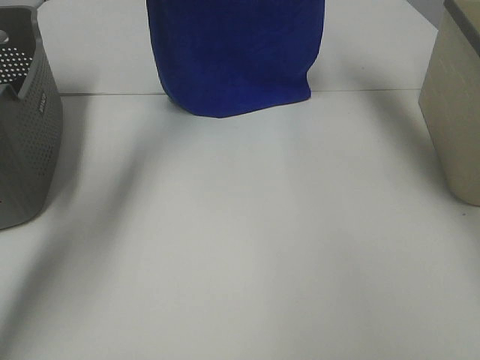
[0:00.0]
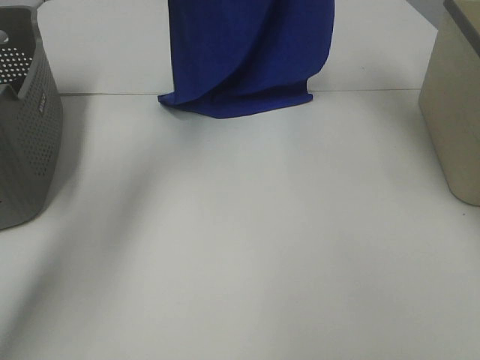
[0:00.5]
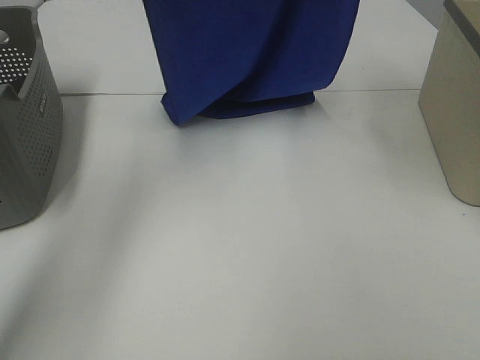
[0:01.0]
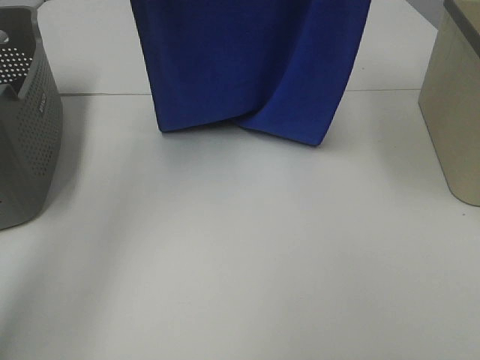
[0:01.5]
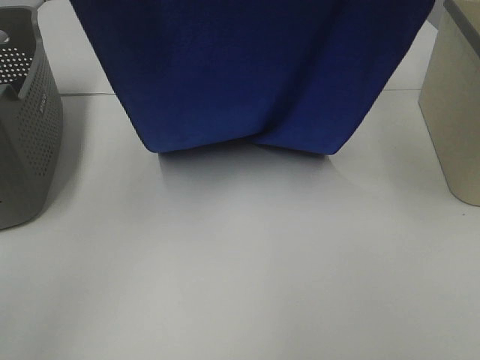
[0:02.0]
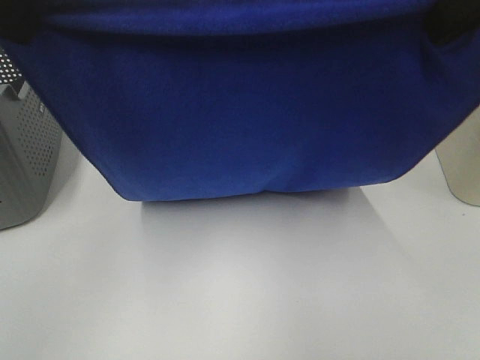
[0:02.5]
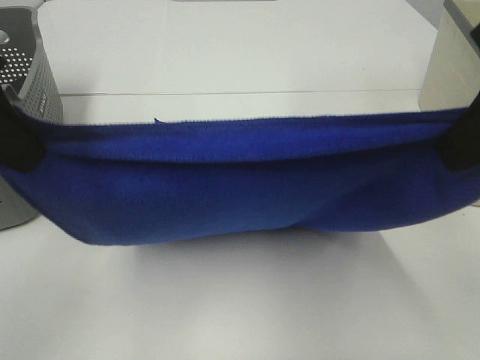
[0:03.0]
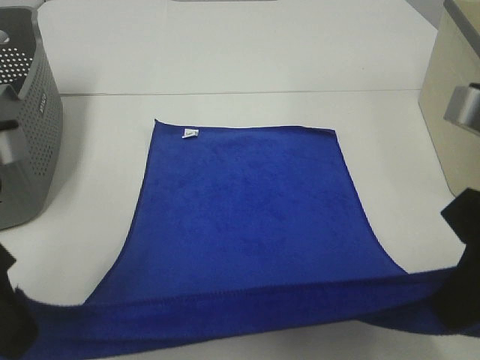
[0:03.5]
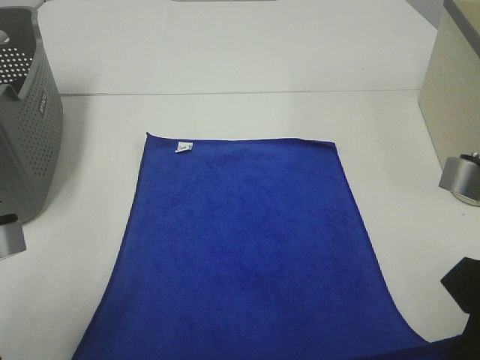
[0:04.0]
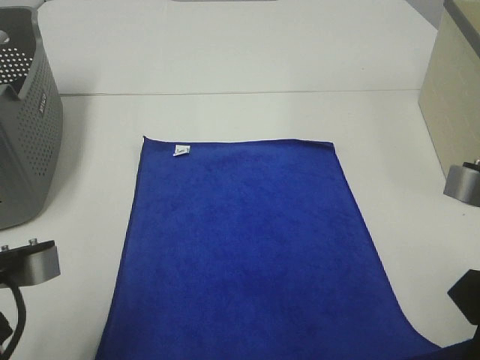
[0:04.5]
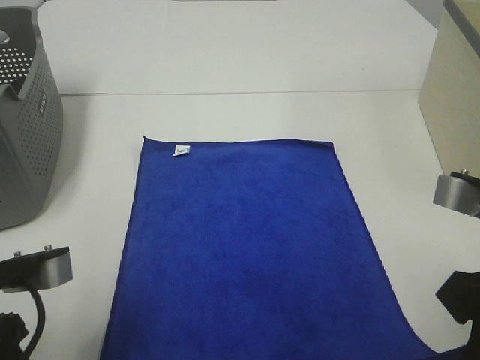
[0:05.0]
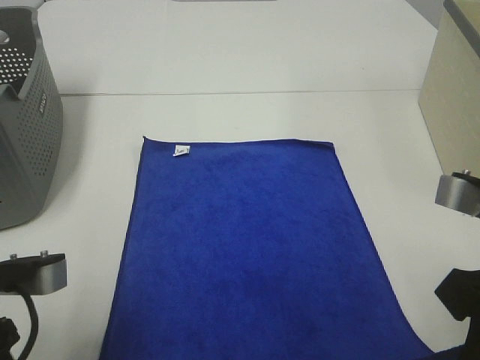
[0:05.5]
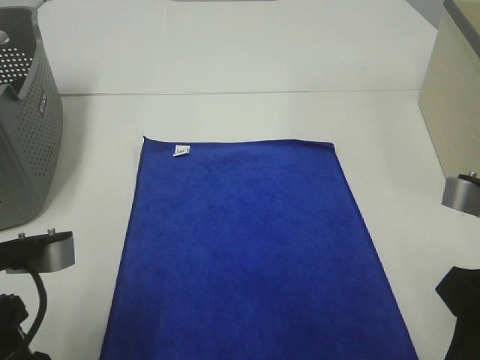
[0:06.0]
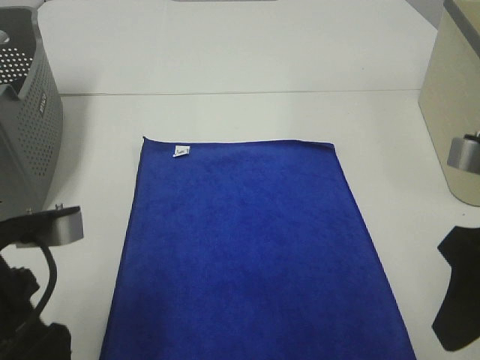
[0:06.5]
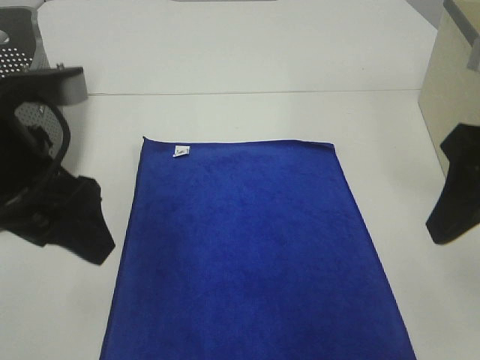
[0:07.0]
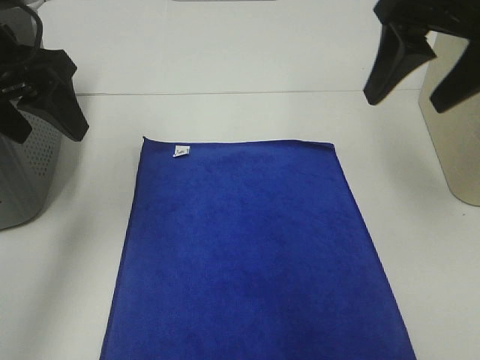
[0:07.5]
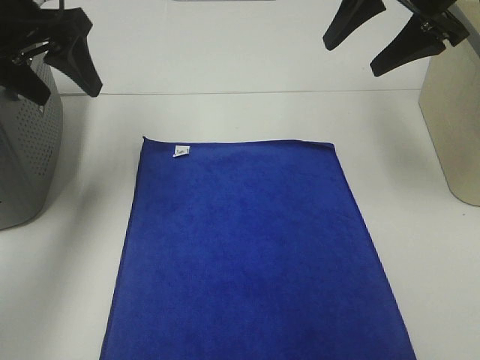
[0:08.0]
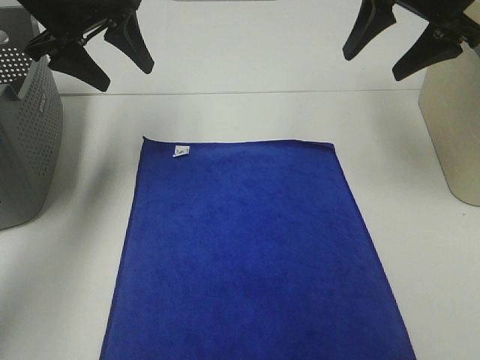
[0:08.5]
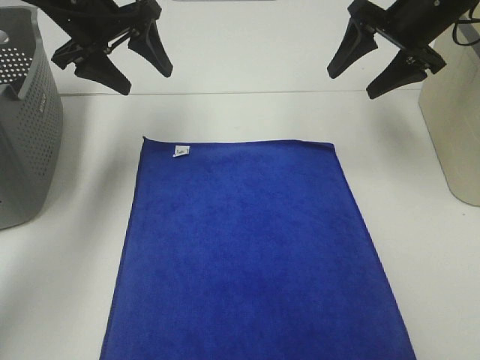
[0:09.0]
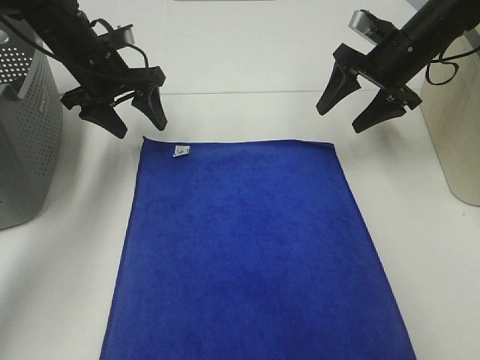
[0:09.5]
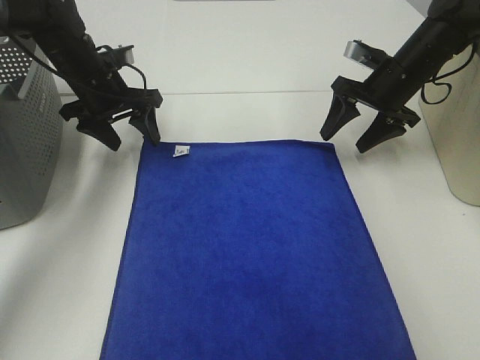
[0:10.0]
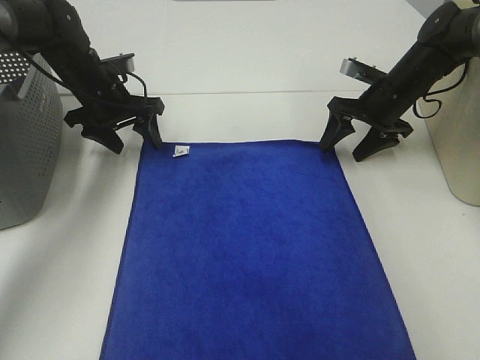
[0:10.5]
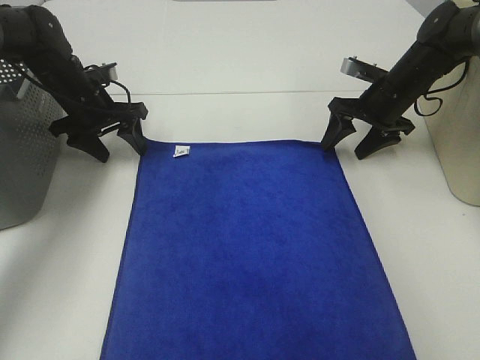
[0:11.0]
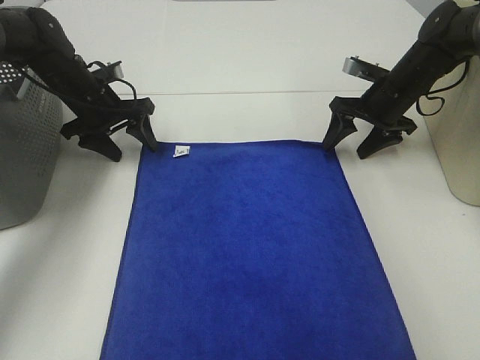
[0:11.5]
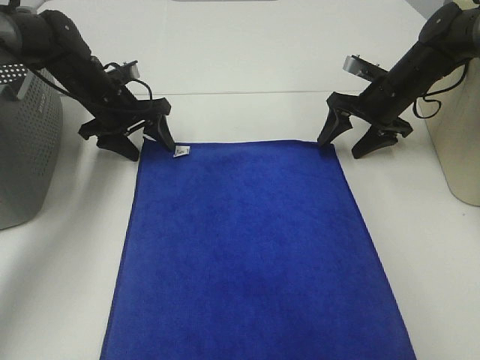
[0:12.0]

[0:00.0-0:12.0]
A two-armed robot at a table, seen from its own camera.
Task of the whole recording: Remove the towel and place it.
Step, 0:02.0 to 0:10.0: Left hand:adjust the blue towel.
Step, 0:02.0 to 0:10.0: Right hand:adjust the blue towel.
0:00.0 to 0:02.0: Both grippers move backward, roughly 20 cm.
0:02.0 to 0:04.0: The grippers both shift downward and backward by about 30 cm.
0:04.0 to 0:06.0: The right gripper opens its fingers. Meanwhile the left gripper opens its fingers.
0:06.0 to 0:08.0: The left gripper heads forward and upward, covering approximately 25 cm; the right gripper shifts about 25 cm forward.
0:08.0 to 0:10.0: The two grippers go about 20 cm downward and forward.
0:10.0 to 0:12.0: The grippers move only a little.

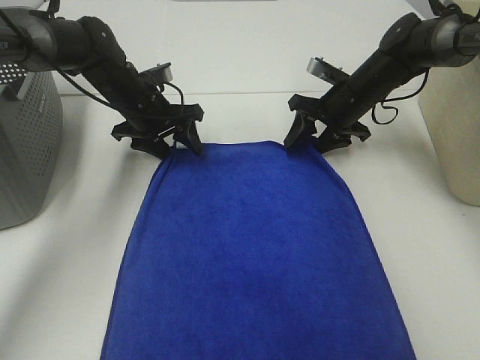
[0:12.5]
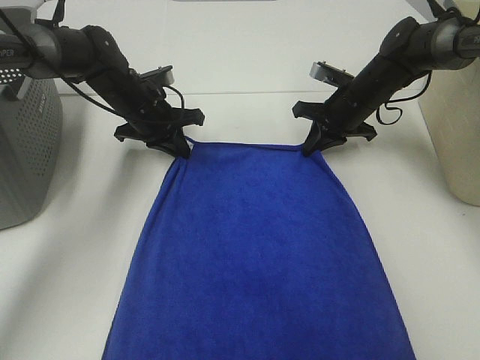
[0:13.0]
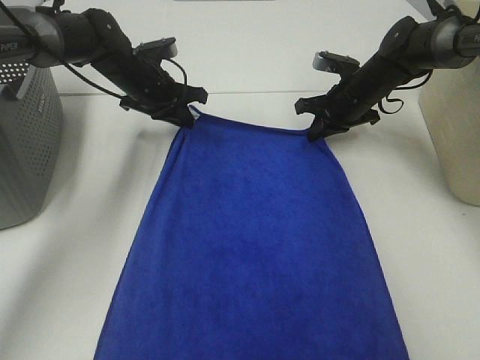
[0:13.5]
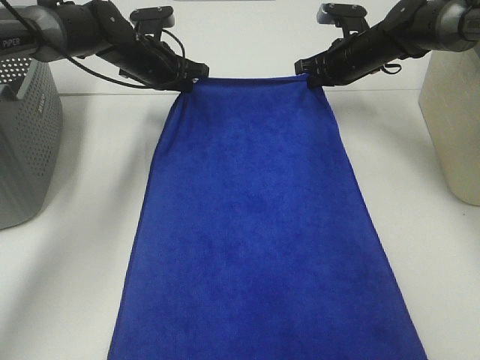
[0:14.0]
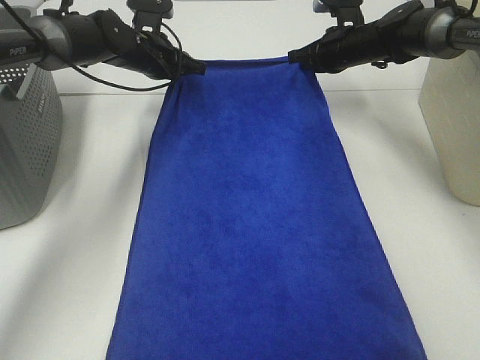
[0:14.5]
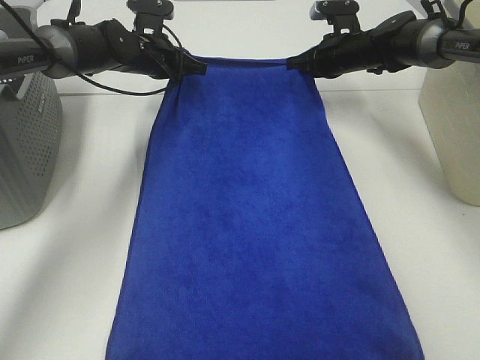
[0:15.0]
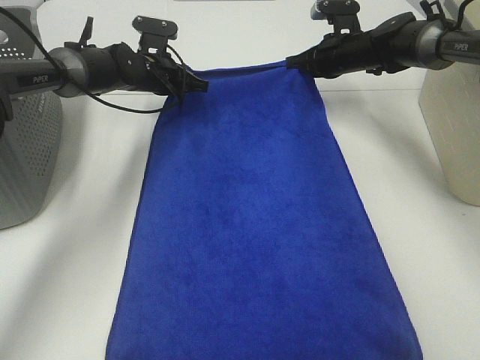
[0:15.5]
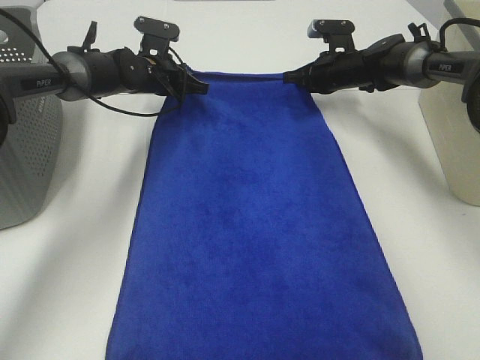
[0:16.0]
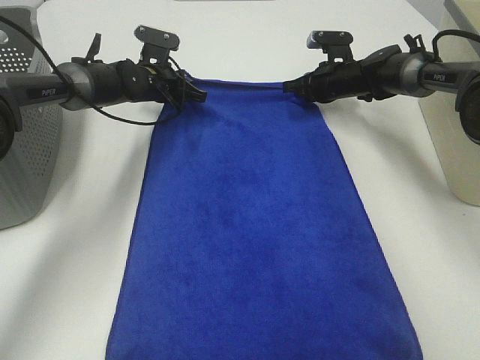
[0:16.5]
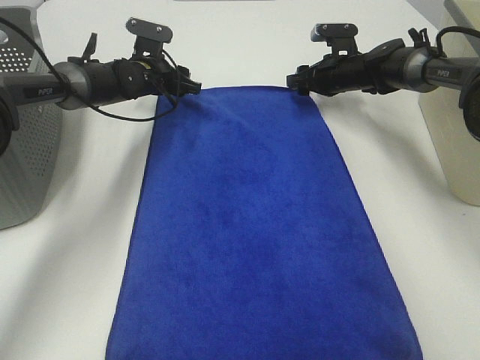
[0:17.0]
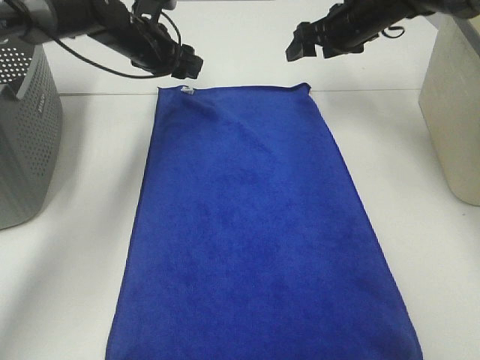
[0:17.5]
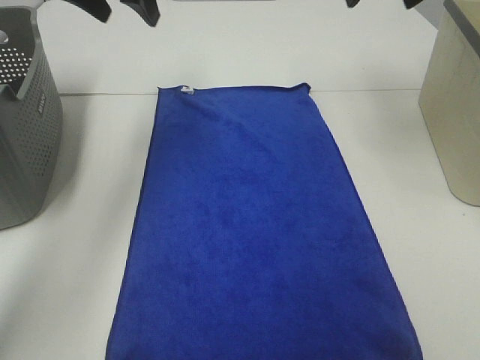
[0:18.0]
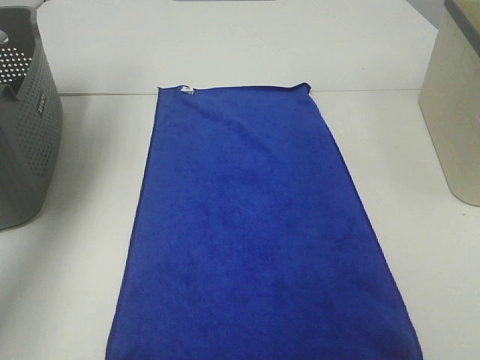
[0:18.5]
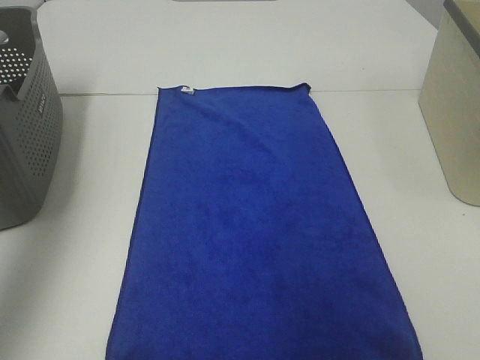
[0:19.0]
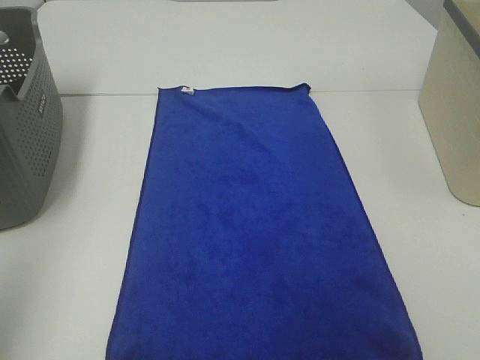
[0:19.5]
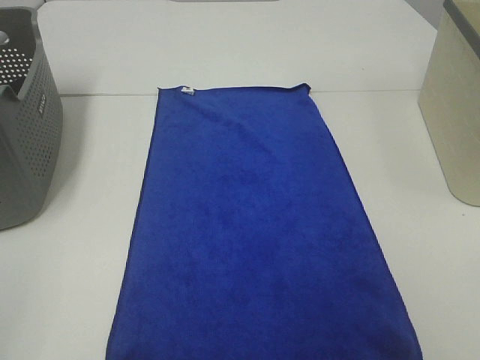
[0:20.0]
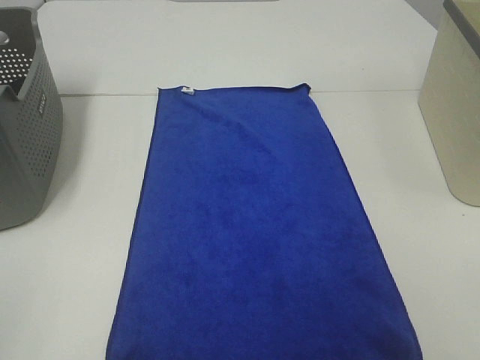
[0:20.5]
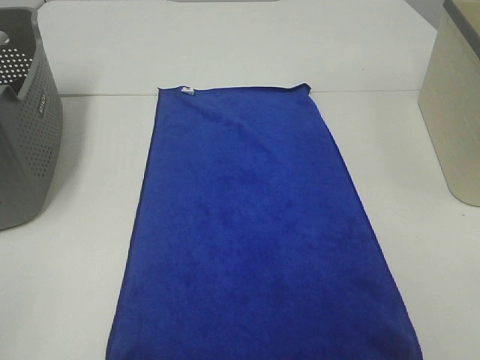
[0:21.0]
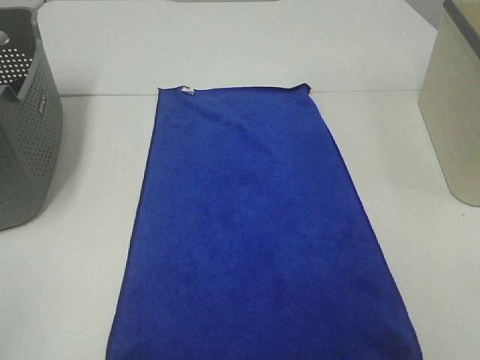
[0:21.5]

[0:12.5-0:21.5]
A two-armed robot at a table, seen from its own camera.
Task of the whole recording: Remove the towel and place it.
0:12.5 to 0:14.5: The grippers both shift forward by approximately 5 cm. The left gripper closes up. The right gripper closes.
0:14.5 to 0:17.0: The right gripper shifts roughly 5 cm downward, and opens its fingers. The left gripper shifts by approximately 5 cm, and opens up.
0:17.0 to 0:19.5: Both grippers move backward and upward, approximately 60 cm.
0:19.5 to 0:21.5: The left gripper shifts approximately 15 cm backward and downward.

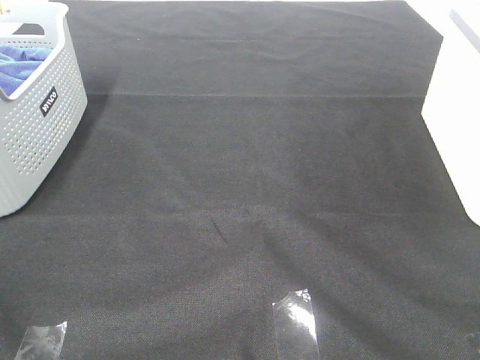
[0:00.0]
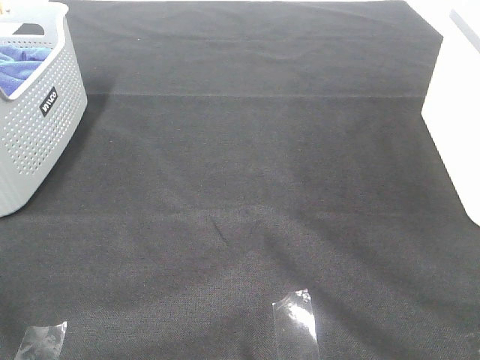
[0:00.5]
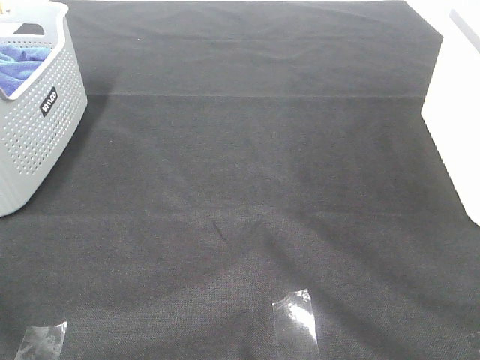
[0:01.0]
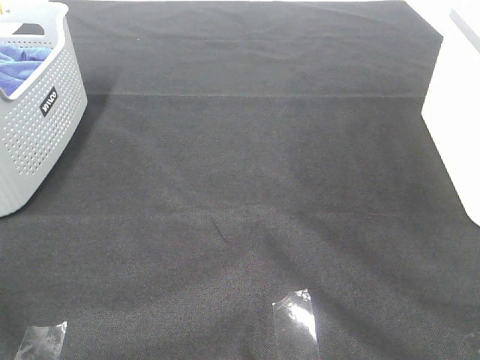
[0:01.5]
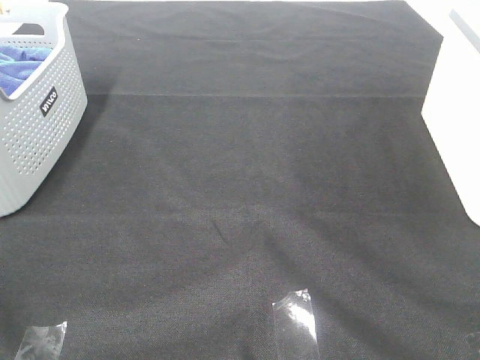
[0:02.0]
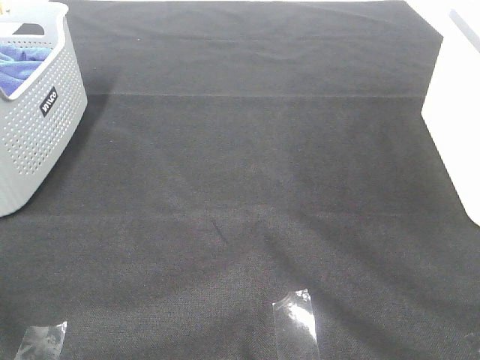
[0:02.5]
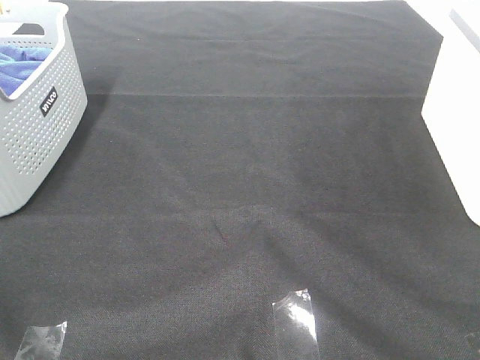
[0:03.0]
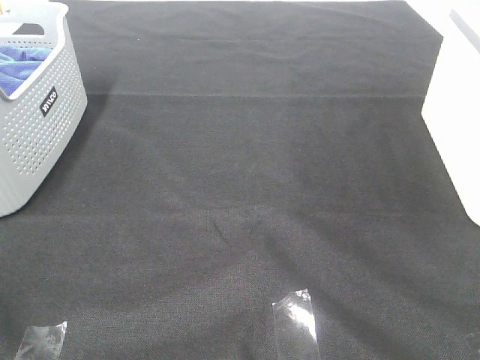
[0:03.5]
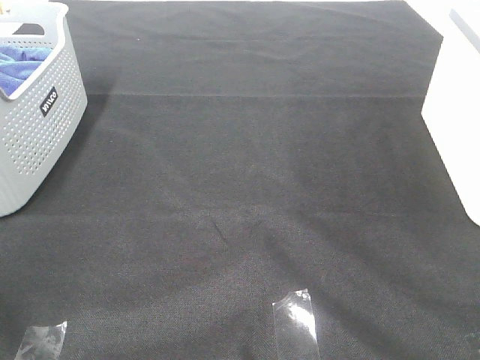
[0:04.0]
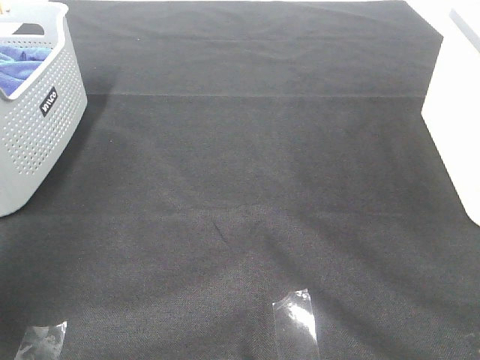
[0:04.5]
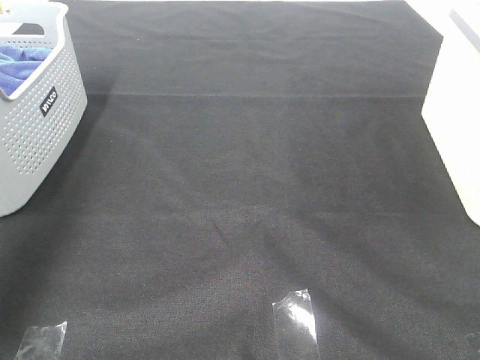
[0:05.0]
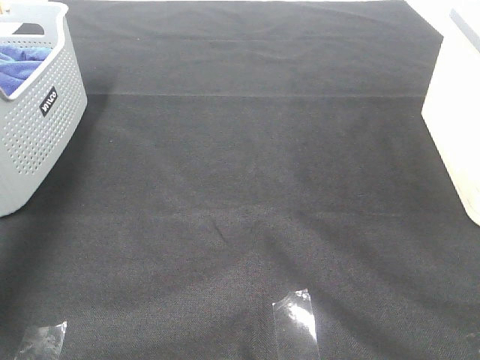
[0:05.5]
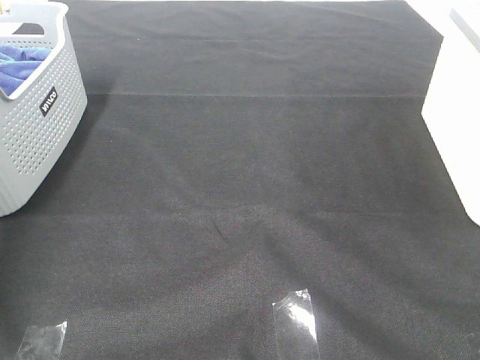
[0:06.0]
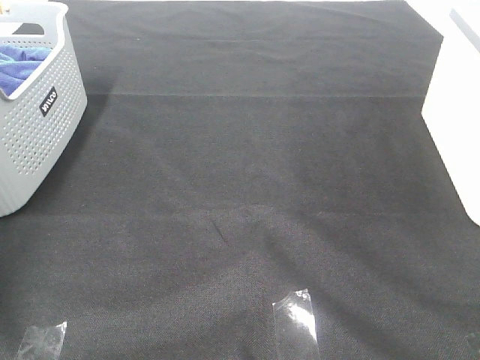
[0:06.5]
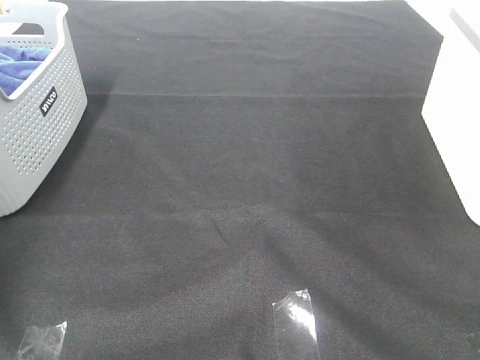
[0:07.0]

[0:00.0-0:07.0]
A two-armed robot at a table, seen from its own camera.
Task of the whole recording: Remove the towel and place it.
0:00.0 to 0:03.5: Both grippers stay put.
0:03.5 to 0:05.0: The left gripper shifts about 30 cm forward.
0:05.0 to 0:07.0: The left gripper travels downward, forward and to the left by about 25 cm, and closes.
